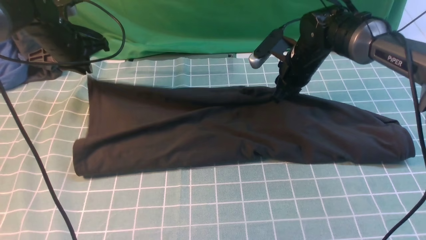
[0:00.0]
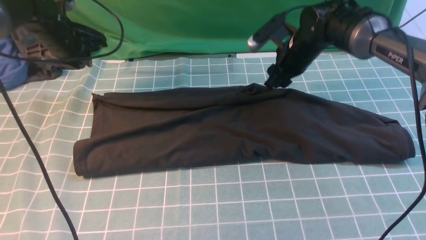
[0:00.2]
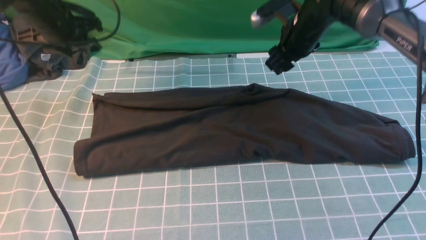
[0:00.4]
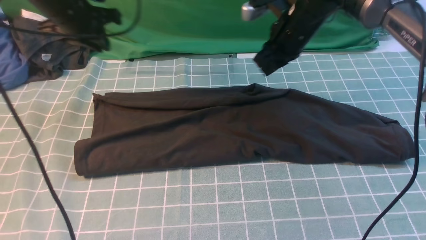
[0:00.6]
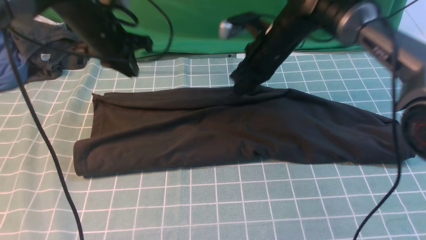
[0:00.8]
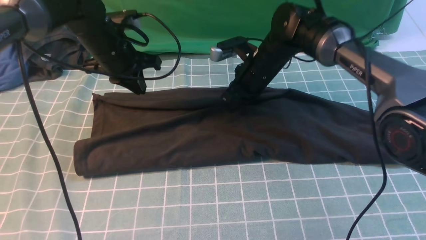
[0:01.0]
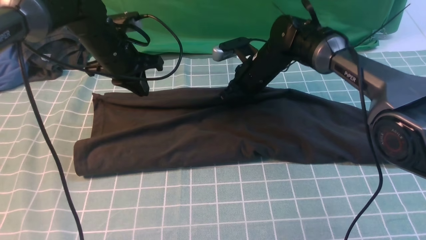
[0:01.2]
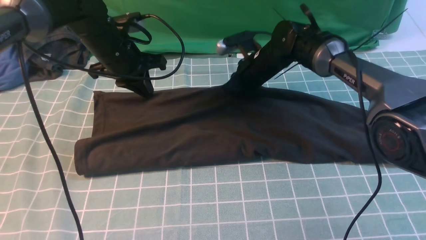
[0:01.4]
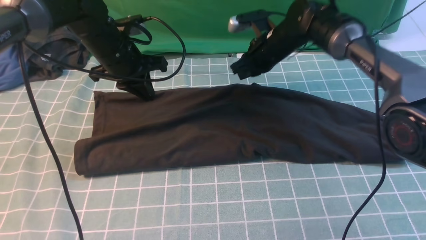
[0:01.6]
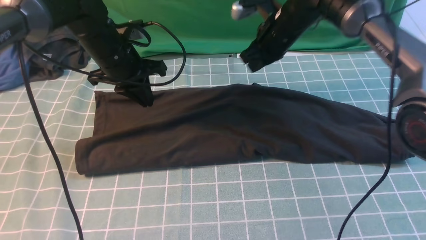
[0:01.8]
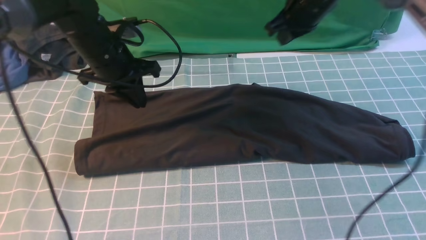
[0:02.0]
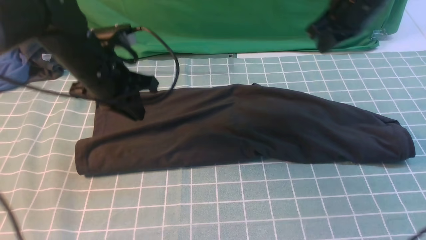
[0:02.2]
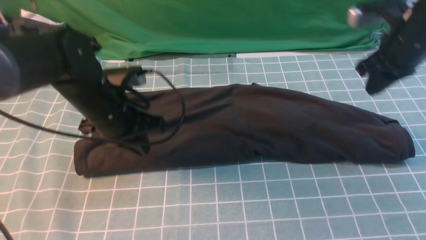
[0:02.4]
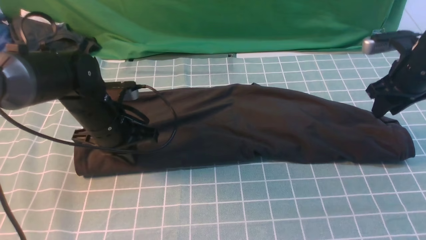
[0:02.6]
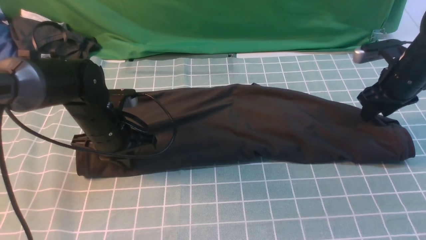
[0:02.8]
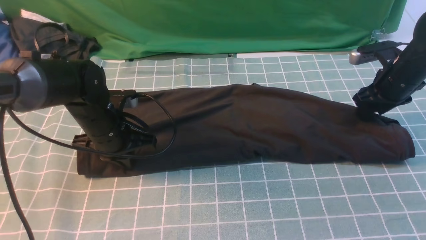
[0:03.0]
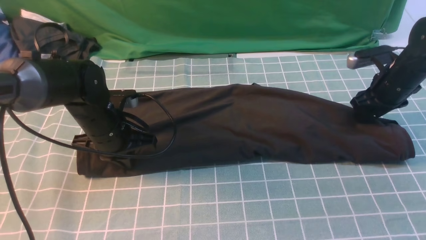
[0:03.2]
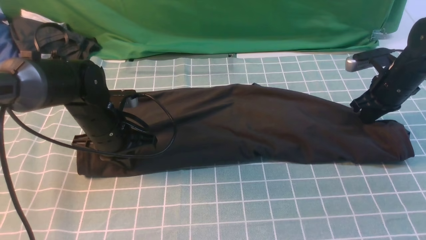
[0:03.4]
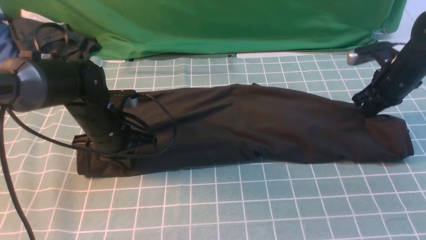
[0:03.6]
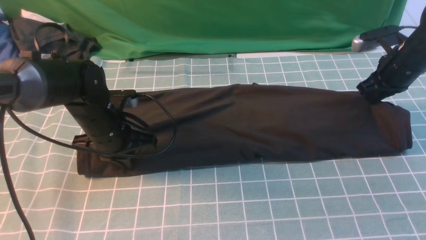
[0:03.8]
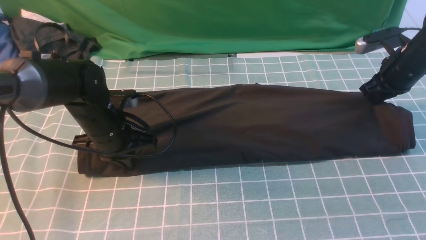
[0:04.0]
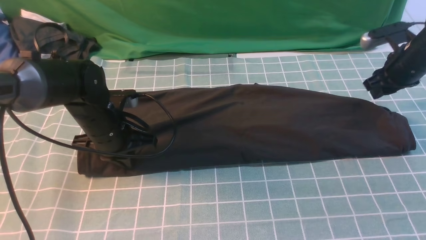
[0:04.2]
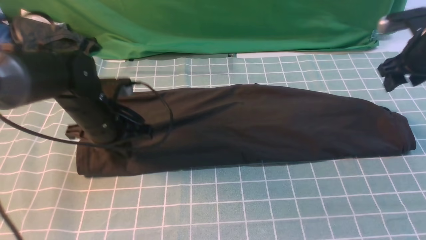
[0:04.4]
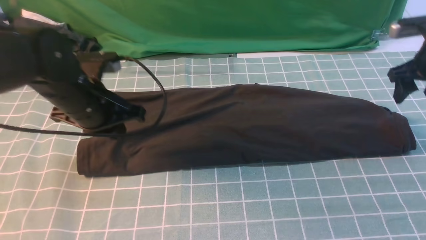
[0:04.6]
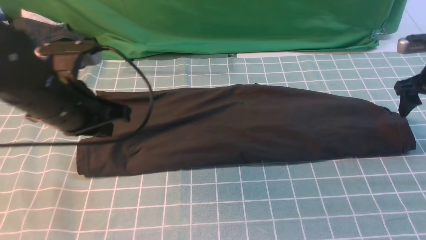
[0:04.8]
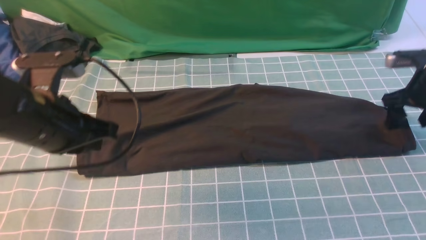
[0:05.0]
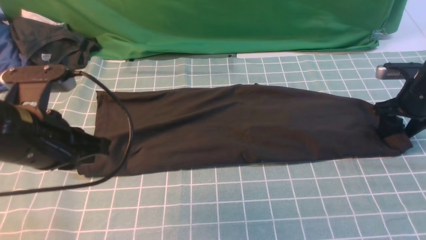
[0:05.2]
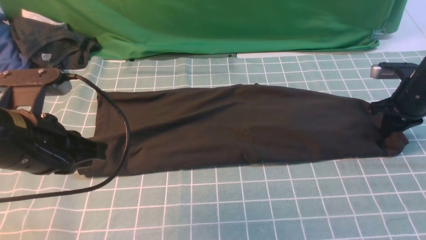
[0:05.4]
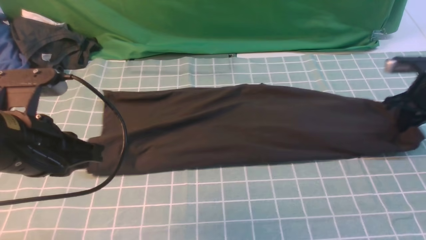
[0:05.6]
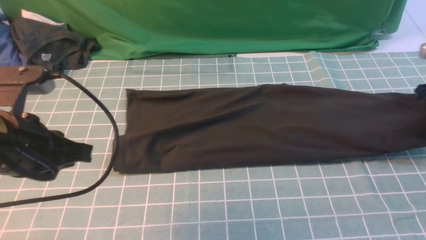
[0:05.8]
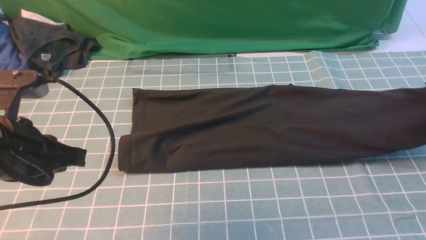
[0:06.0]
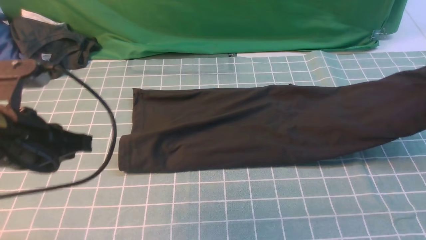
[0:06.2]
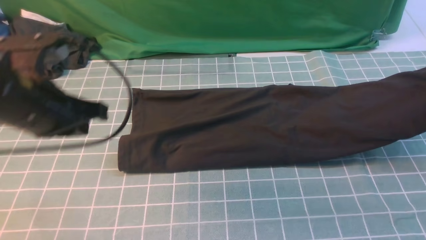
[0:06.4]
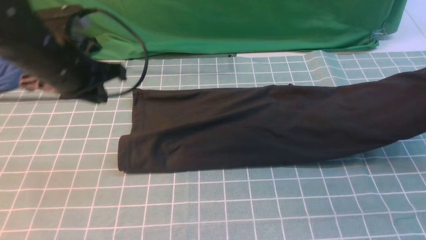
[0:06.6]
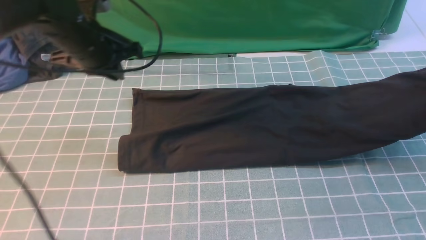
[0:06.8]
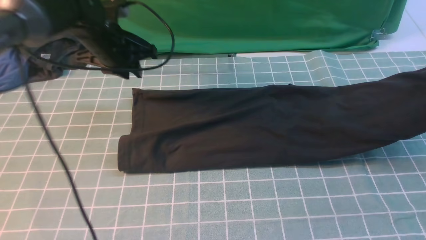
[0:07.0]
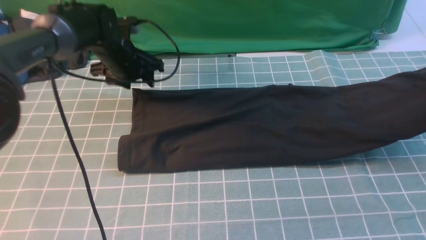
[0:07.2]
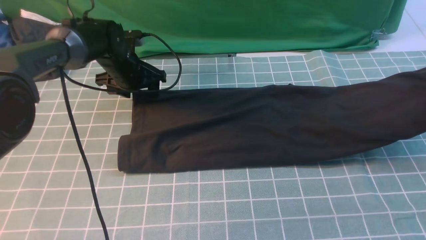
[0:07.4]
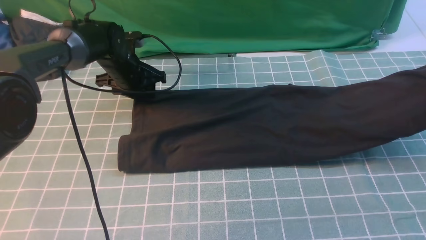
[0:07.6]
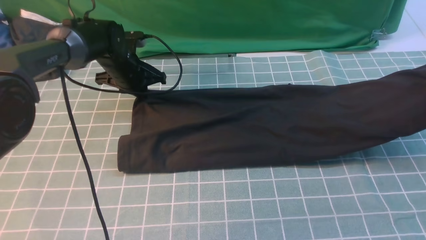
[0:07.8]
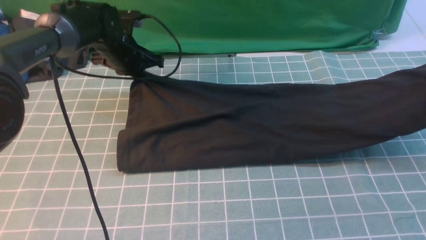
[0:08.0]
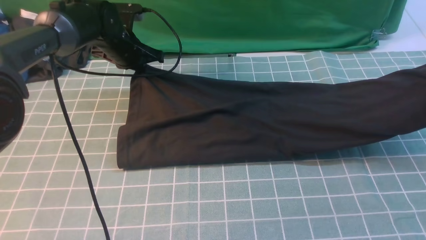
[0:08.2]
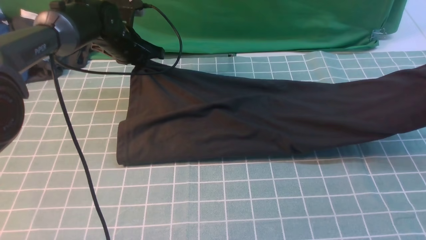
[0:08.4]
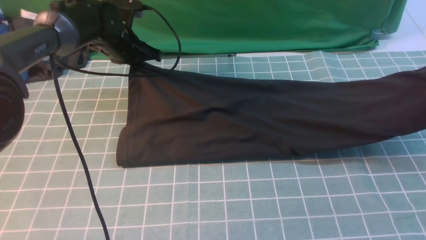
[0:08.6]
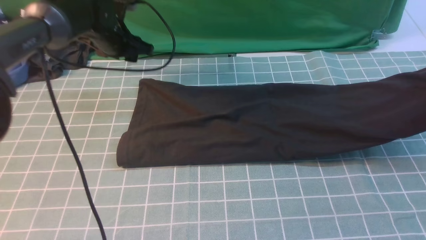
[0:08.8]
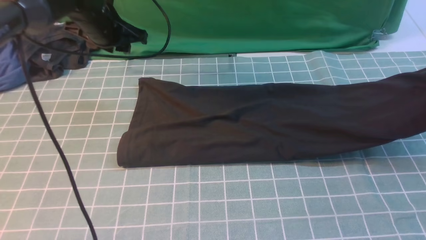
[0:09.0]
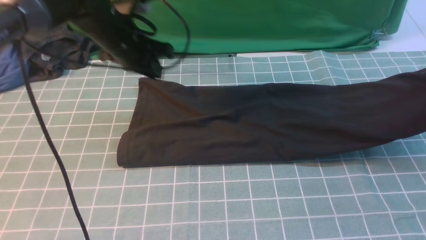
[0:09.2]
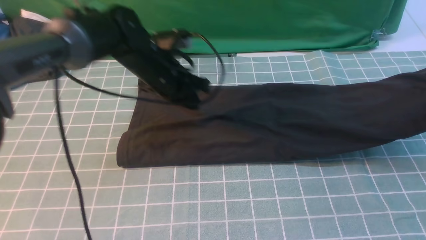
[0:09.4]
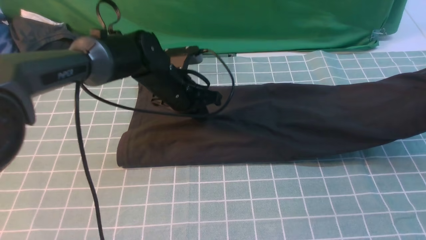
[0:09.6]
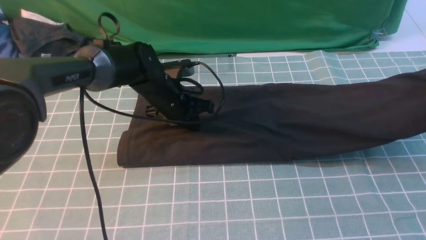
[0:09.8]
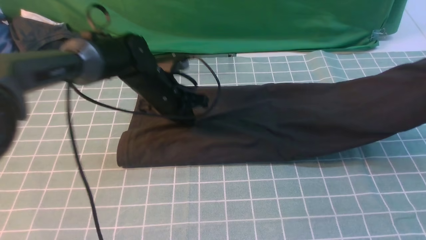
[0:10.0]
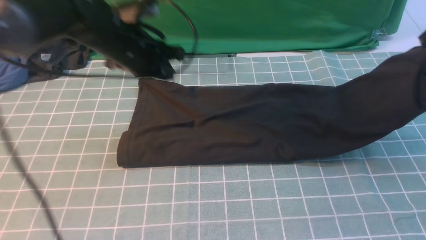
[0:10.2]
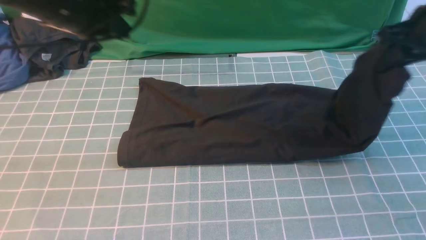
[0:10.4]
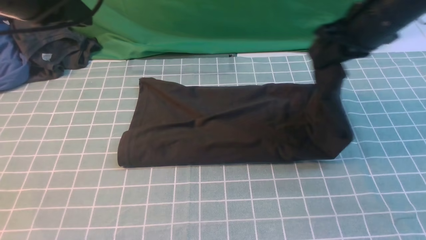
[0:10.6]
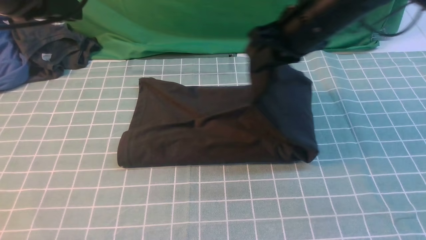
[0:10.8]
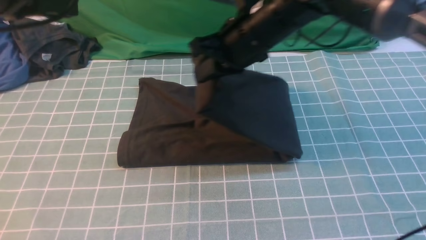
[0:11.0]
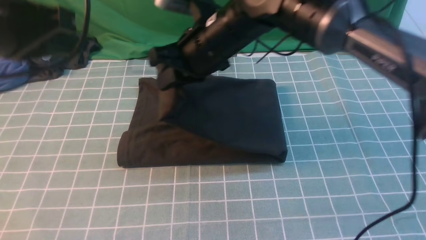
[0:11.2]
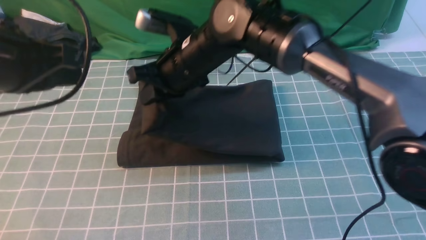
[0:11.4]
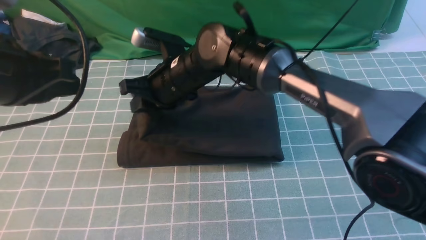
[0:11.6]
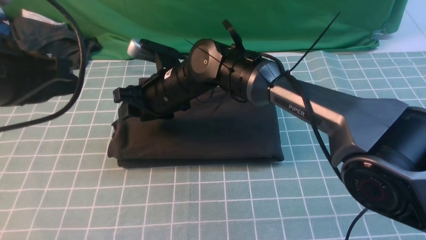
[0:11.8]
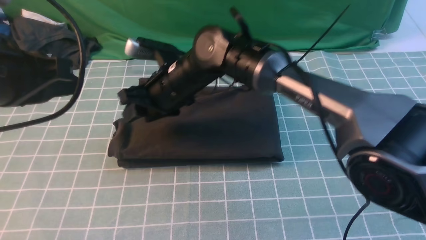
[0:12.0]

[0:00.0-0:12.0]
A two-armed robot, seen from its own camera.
Step, 0.4 to 5.4 s: use the right arm to clamp the right edge of the fabric.
Step, 5.6 to 12.0 s: use the right arm to drag the right edge of the fabric to the left and folds it over the left edge.
0.0 to 1.6 s: The left gripper goes some 10 cm to the right. The right gripper moves up and down over approximately 10 cm, changing direction 2 times, and closes up.
1.6 to 3.0 s: The left gripper is displaced backward and downward by approximately 10 cm, while the right gripper is displaced to the right by some 20 cm, and opens.
3.0 to 4.4 s: The right gripper moves some 5 cm, and closes, then opens again.
4.4 to 6.0 s: The left gripper shifts approximately 15 cm backward and upward, while the right gripper shifts approximately 5 cm to the right, travels downward and back again, some 5 cm each way, and closes its fingers.
6.0 to 7.6 s: The left gripper is displaced forward and downward by roughly 30 cm, and opens its fingers.
7.6 to 9.0 s: The left gripper heads upward, covering roughly 10 cm, and closes, then opens again.
9.0 to 10.4 s: The left gripper travels backward and upward by roughly 15 cm, and closes, while the right gripper goes about 10 cm to the left.
10.4 to 12.0 s: The left gripper heads backward, covering about 15 cm. Meanwhile the right gripper heads to the left, covering roughly 30 cm, and opens its fingers.

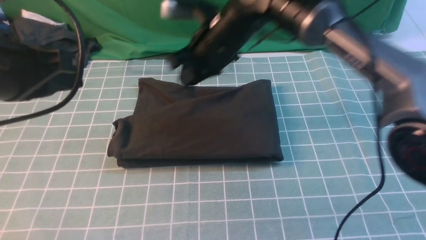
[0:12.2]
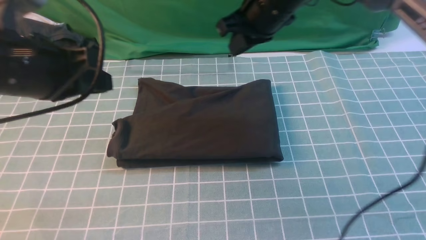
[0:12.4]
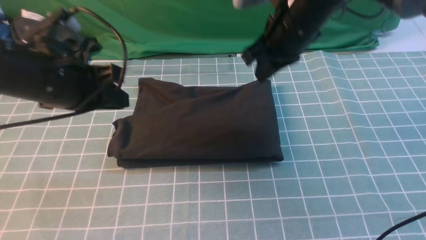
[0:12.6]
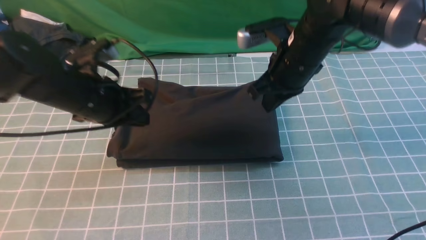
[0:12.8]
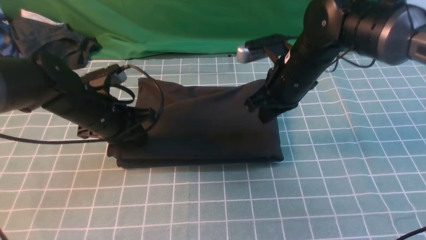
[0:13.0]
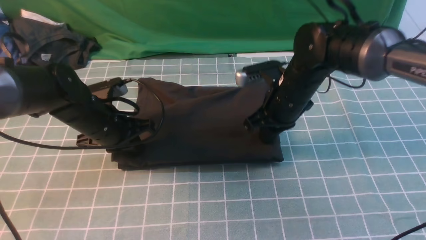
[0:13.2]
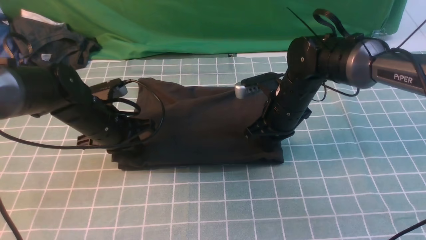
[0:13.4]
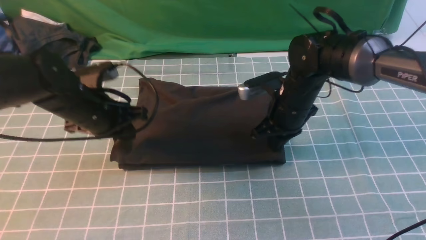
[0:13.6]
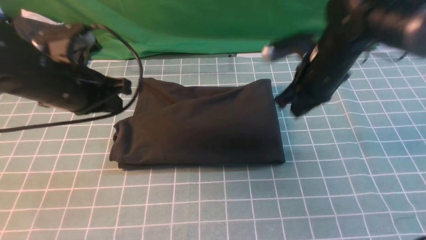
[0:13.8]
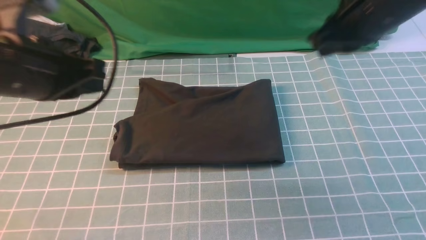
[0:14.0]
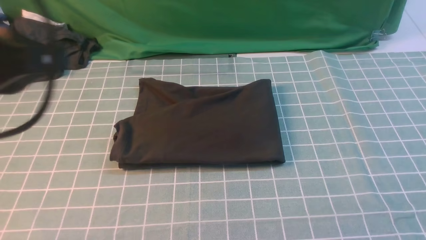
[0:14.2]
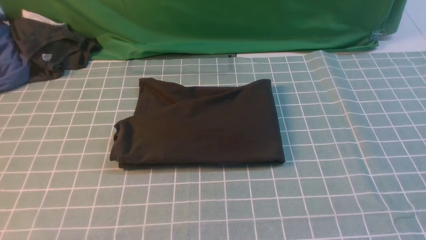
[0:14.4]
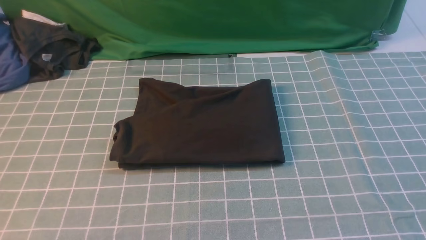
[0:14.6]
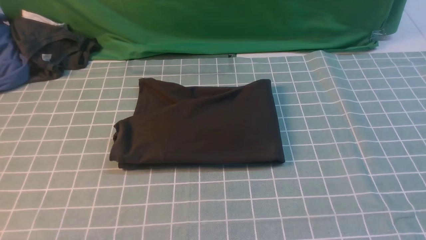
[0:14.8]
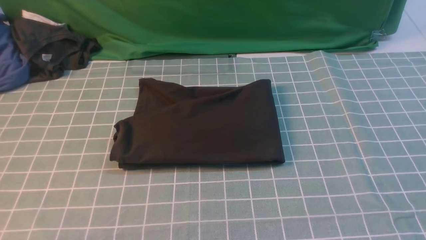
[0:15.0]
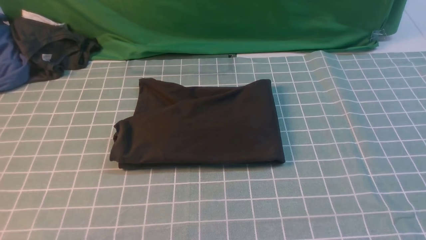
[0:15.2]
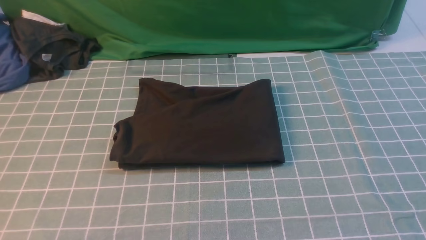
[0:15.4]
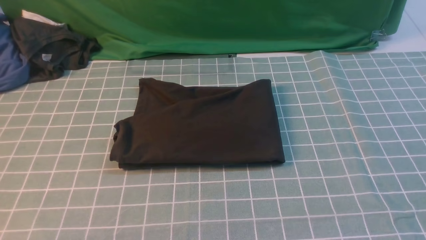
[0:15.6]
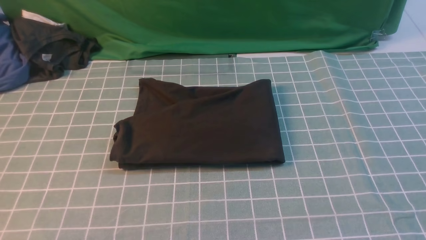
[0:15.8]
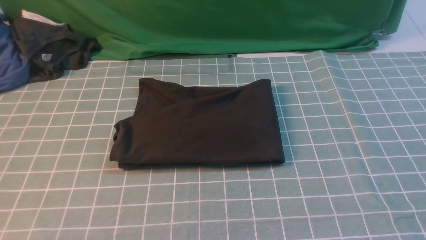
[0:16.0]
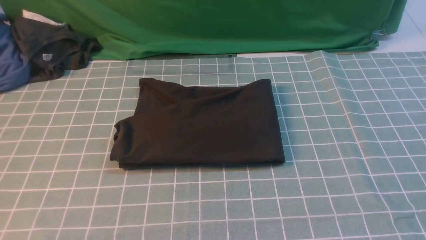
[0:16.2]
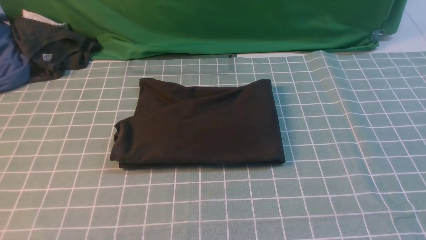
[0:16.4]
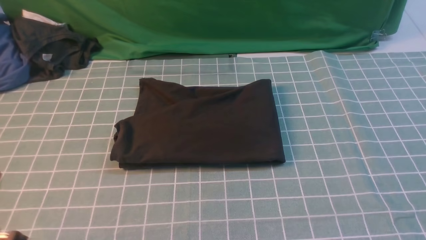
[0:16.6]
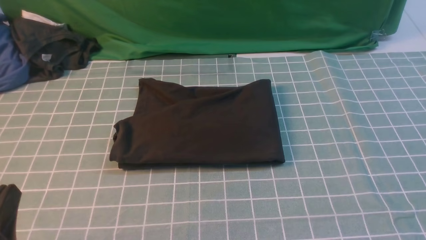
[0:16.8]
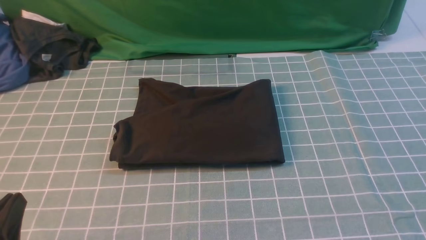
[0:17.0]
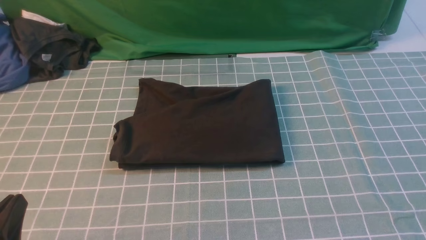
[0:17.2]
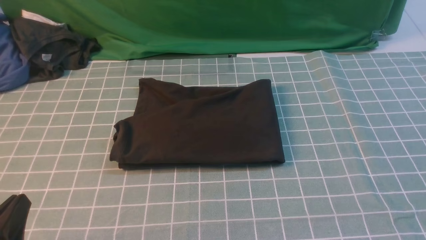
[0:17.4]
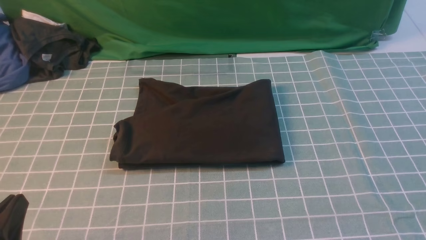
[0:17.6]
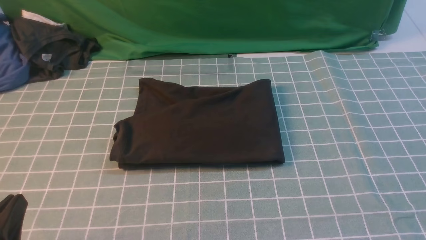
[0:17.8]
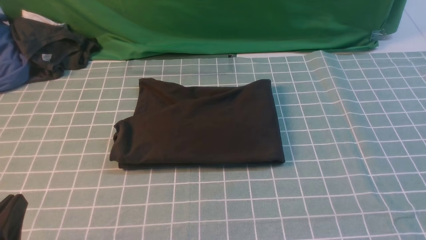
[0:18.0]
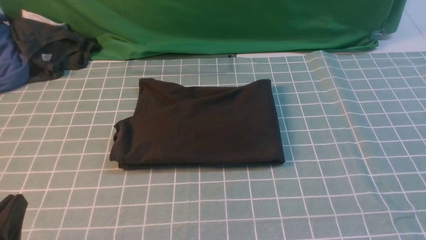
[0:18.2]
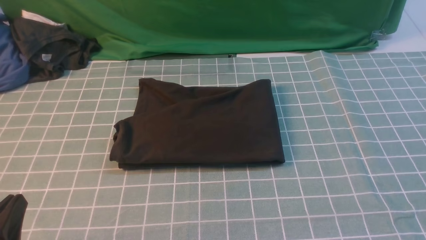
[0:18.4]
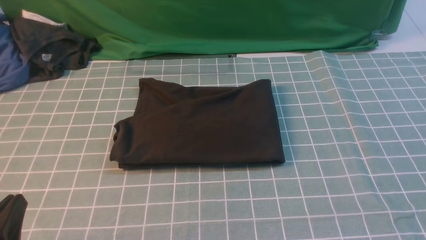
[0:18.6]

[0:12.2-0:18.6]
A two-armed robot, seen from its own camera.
12.2 to 13.8 s: The left gripper travels forward by roughly 5 cm, and travels downward and back again, some 20 cm each way. Meanwhile the right gripper is displaced to the right by approximately 15 cm, and travels downward and back again, some 10 cm each way.
13.8 to 15.4 s: The right gripper moves backward and to the right, approximately 40 cm. The left gripper travels backward and upward by approximately 30 cm.
15.4 to 17.0 s: The left gripper shifts roughly 25 cm downward.
